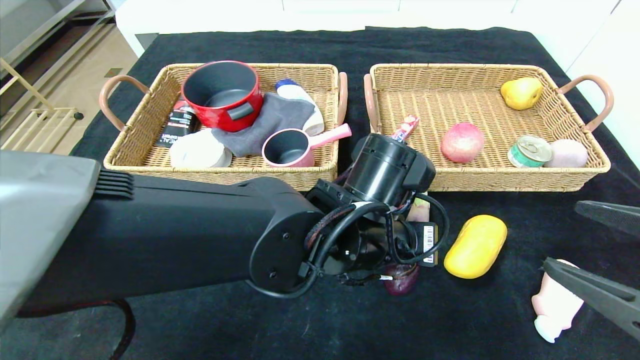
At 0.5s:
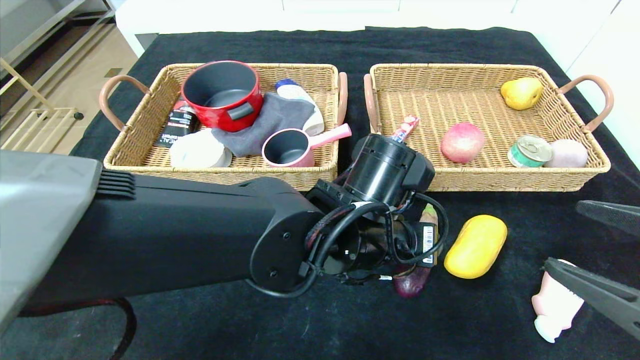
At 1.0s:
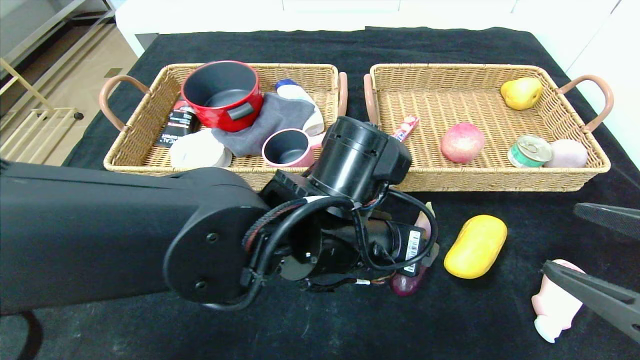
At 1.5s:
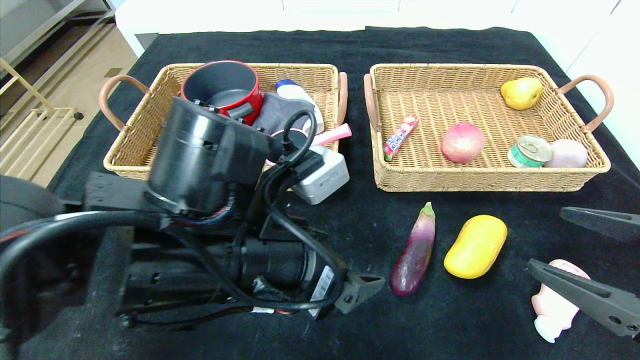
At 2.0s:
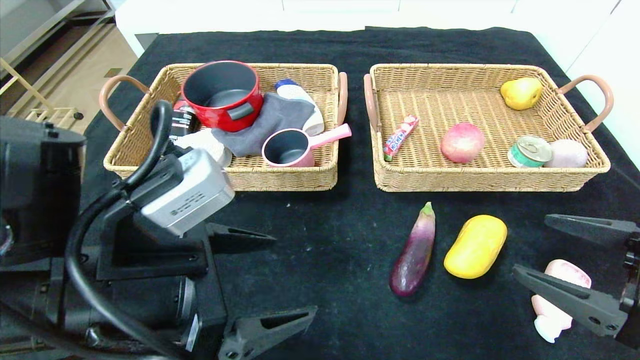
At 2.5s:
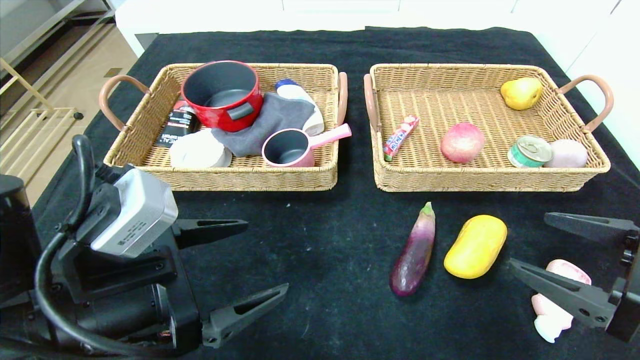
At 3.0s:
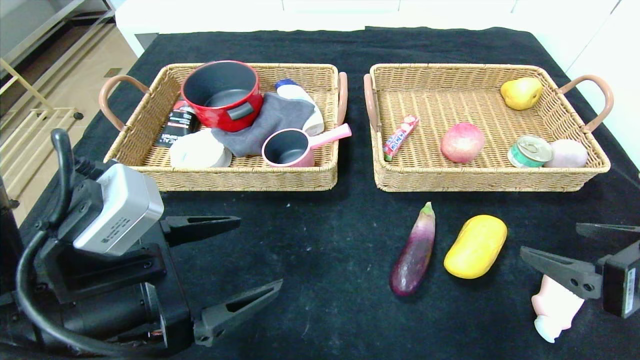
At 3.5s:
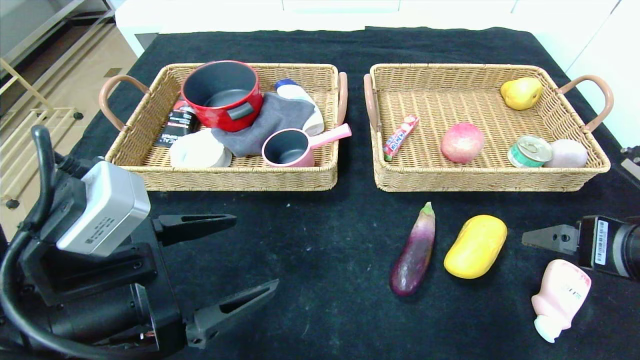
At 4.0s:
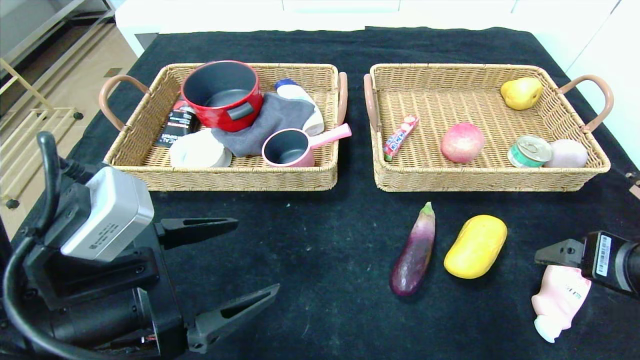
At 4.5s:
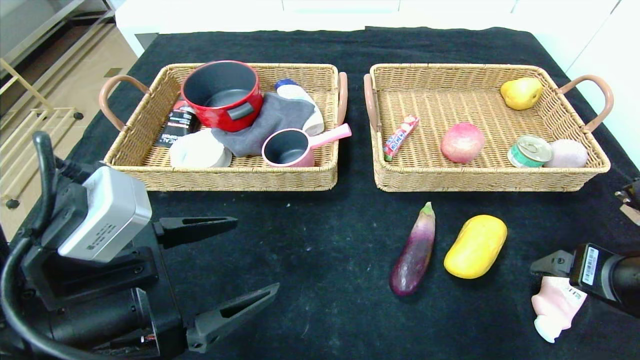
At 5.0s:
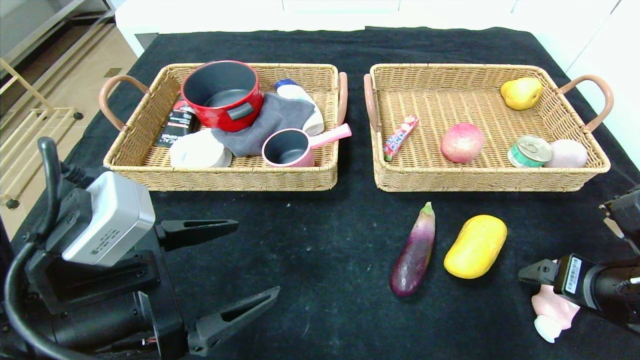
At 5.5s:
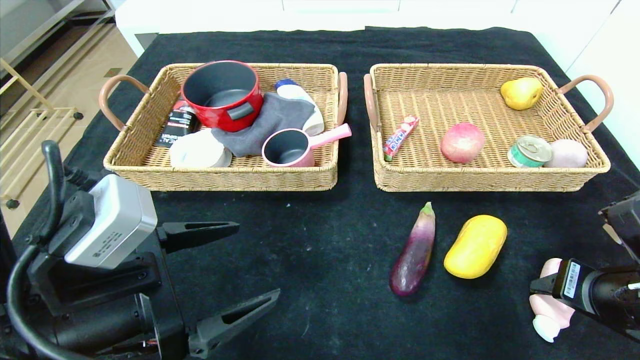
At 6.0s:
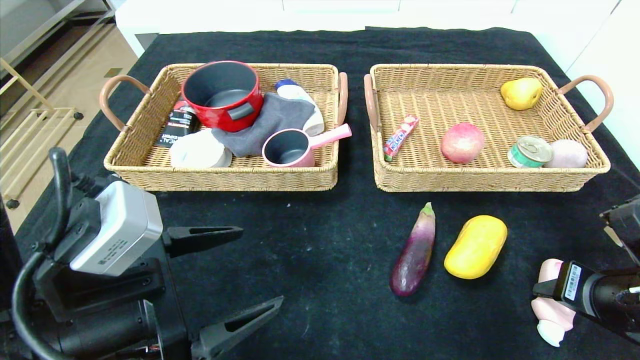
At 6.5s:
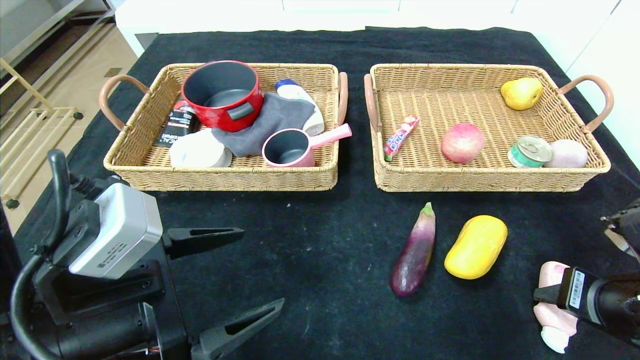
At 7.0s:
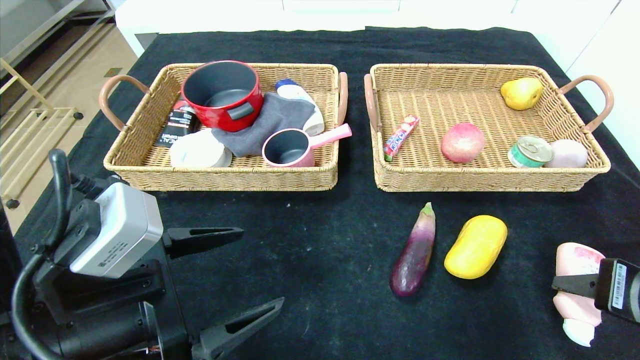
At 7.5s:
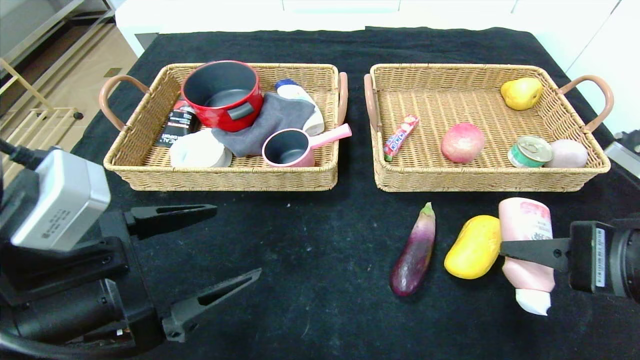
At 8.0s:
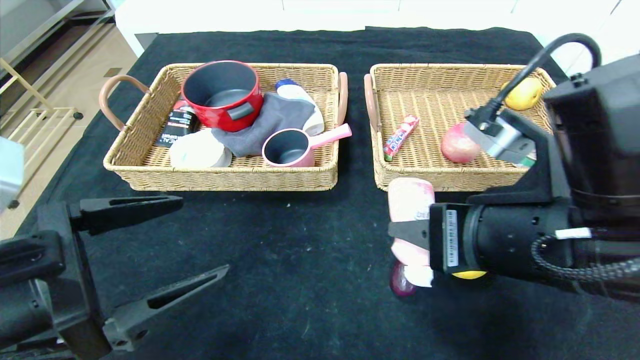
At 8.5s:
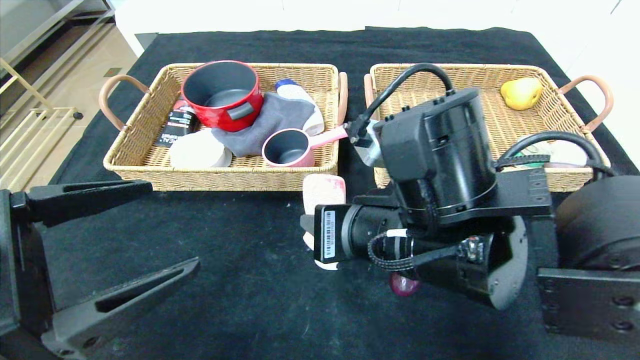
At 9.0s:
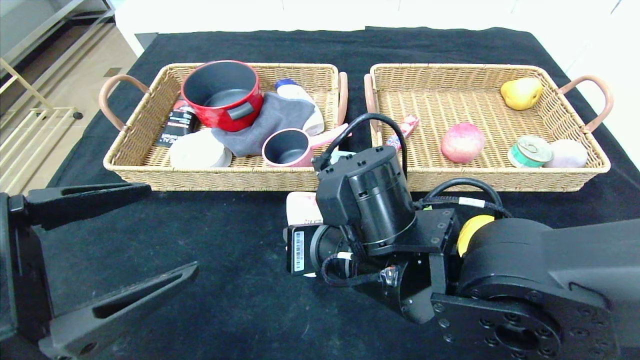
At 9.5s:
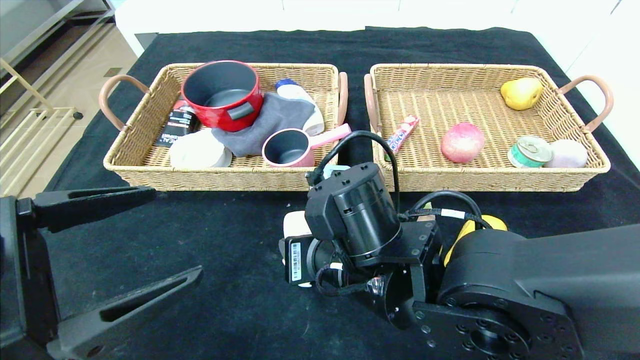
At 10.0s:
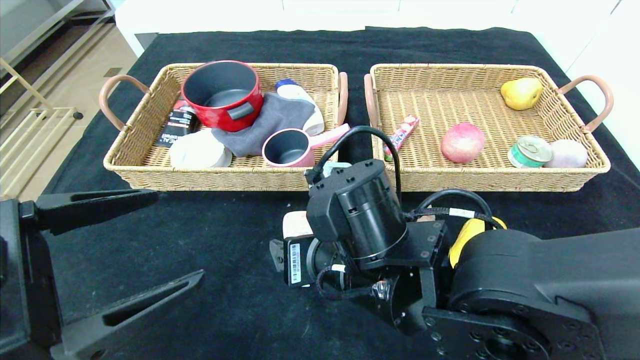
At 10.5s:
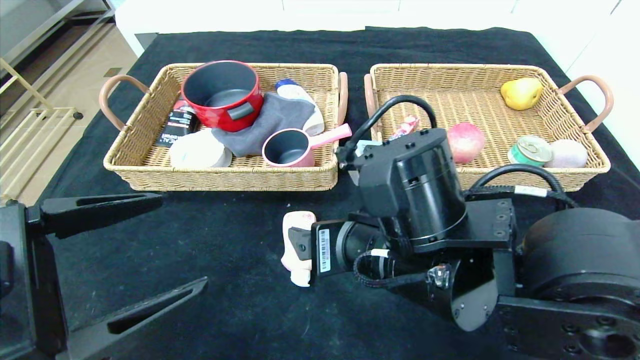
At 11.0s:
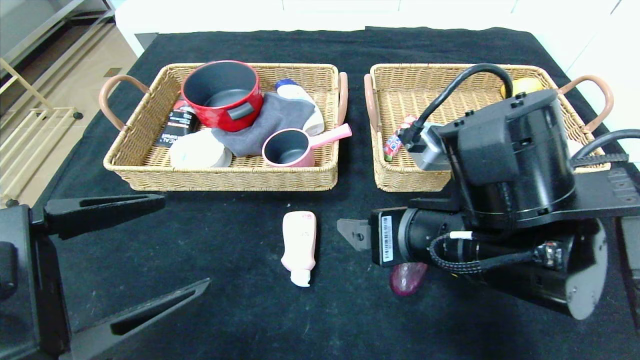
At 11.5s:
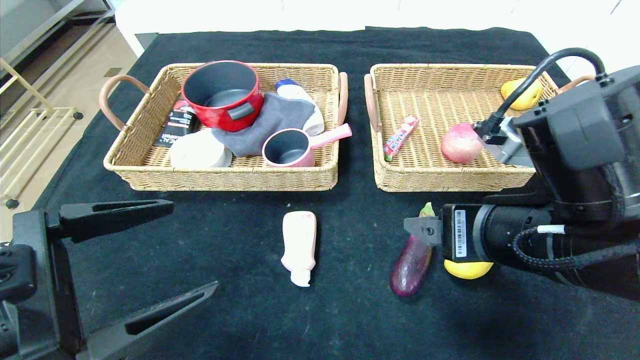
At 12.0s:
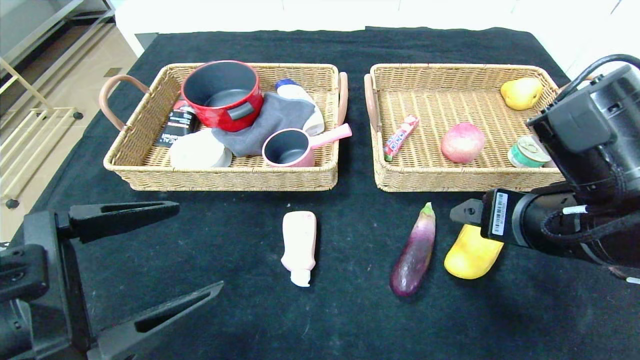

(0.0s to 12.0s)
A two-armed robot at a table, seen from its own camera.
Step, 1.0s - 10.0s: Place the detergent in the center of the table.
0.0s - 2.0s: The left gripper goes some 20 cm to the left and backward, and opens up.
4.0s - 6.0s: The right gripper is displaced downward by some 5 cm, and closes up.
6.0s - 8.0s: The left gripper moves some 5 cm. The right gripper moves to the left and upward, some 20 cm.
8.0s - 10.0s: The right gripper is displaced to the left and downward by approximately 15 cm, and opens its fingers.
10.0s - 12.0s: The right gripper shifts approximately 15 cm to the right.

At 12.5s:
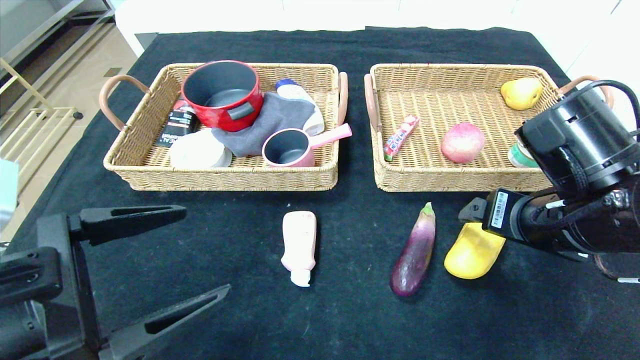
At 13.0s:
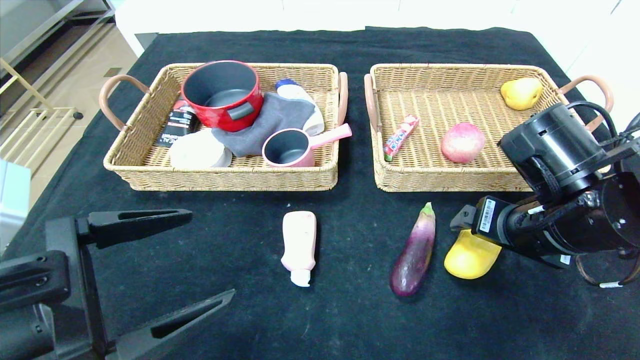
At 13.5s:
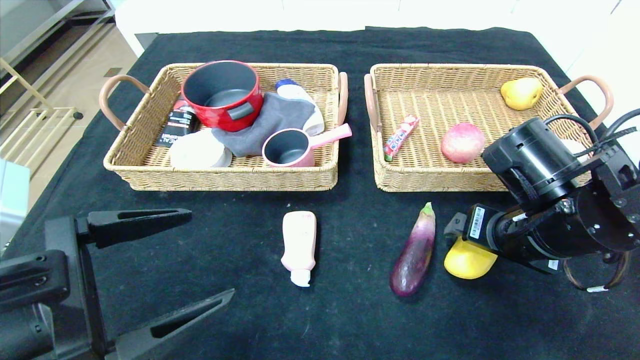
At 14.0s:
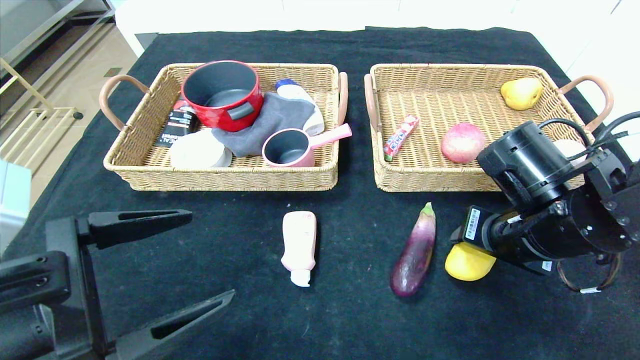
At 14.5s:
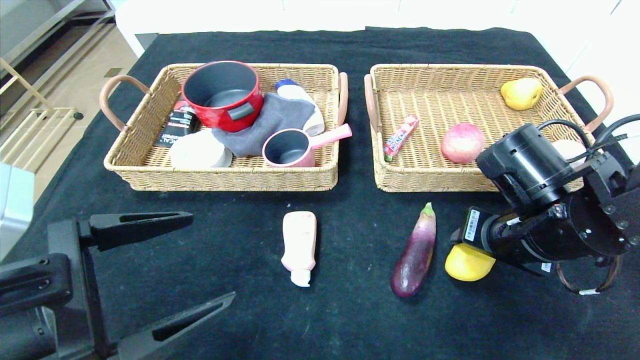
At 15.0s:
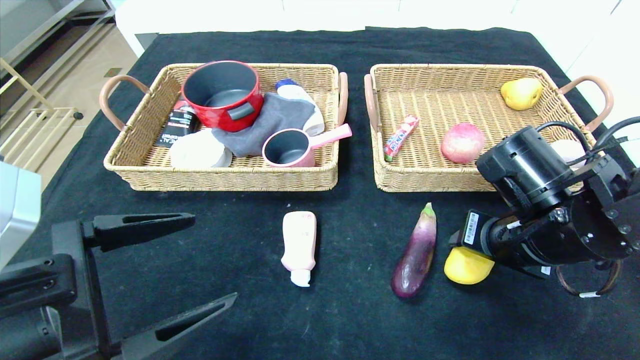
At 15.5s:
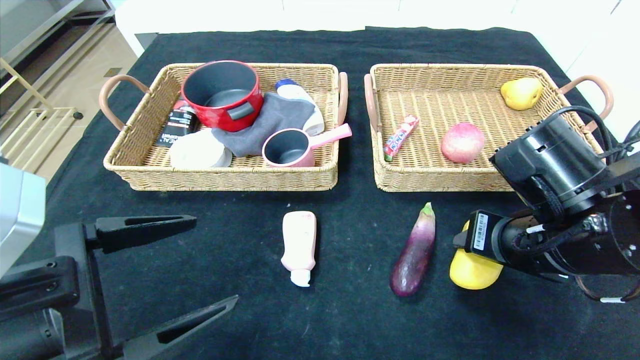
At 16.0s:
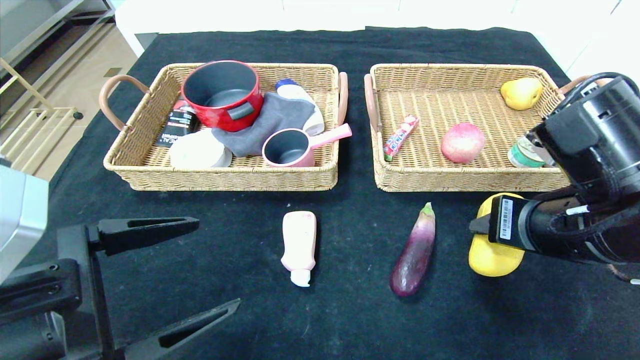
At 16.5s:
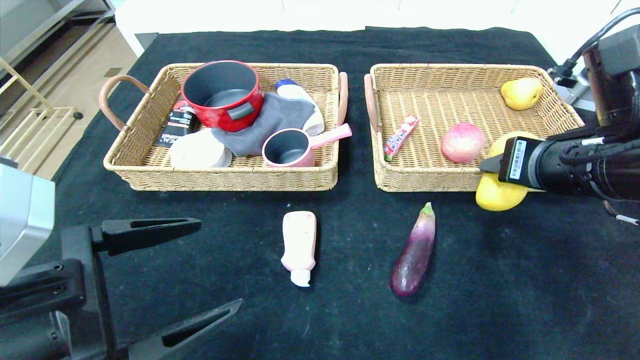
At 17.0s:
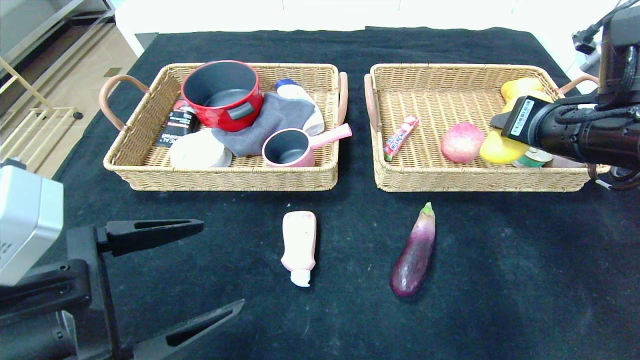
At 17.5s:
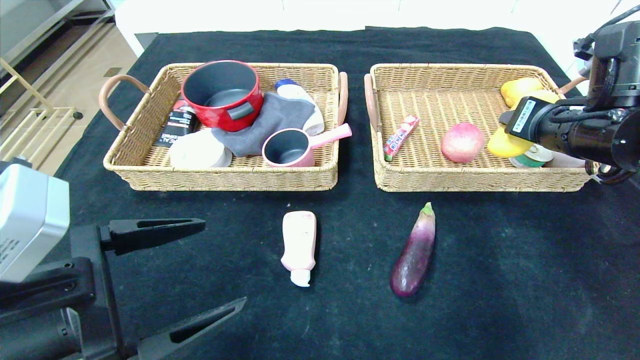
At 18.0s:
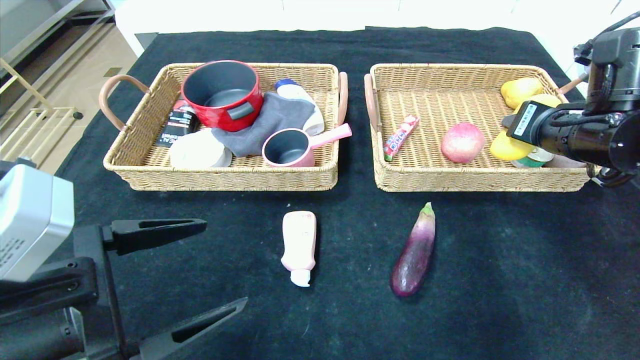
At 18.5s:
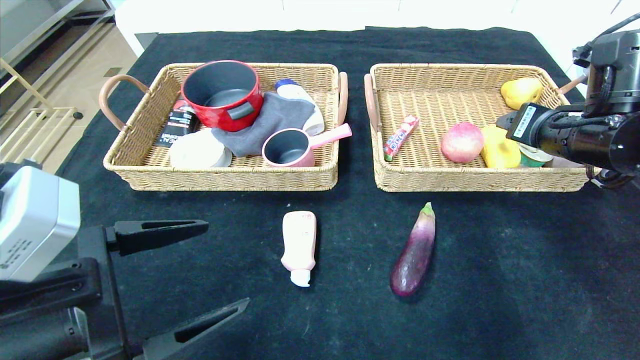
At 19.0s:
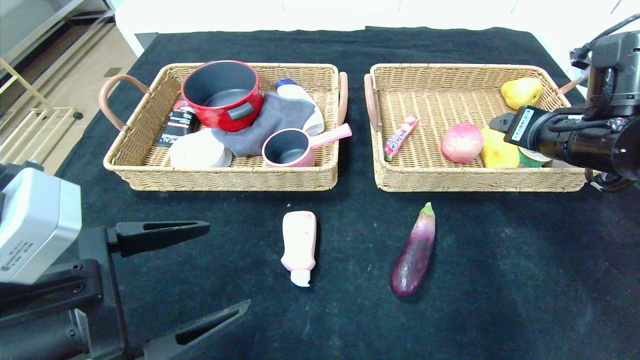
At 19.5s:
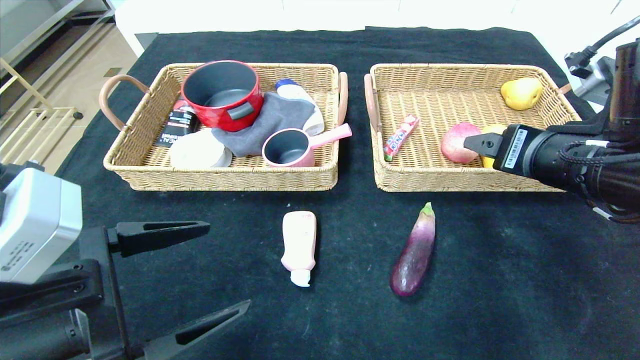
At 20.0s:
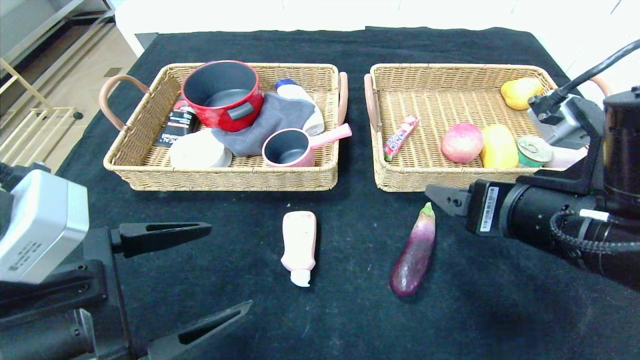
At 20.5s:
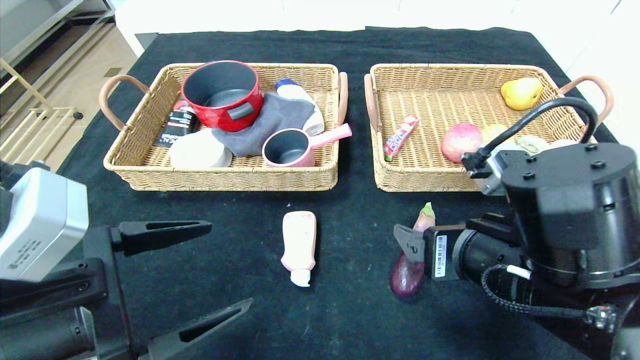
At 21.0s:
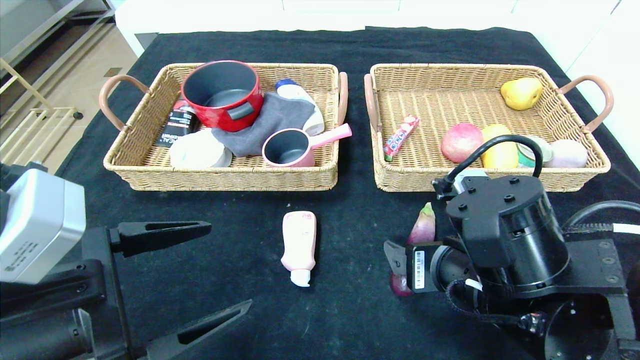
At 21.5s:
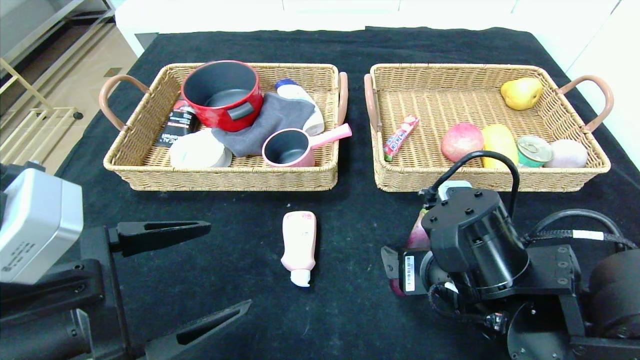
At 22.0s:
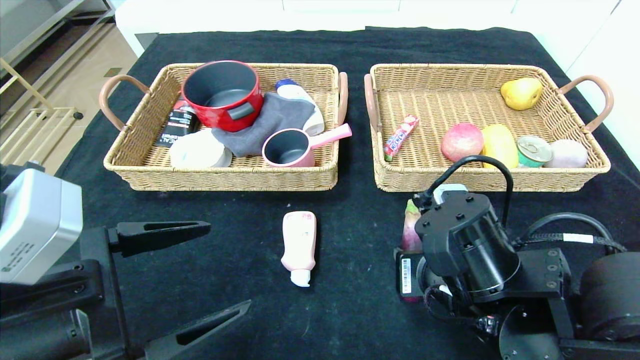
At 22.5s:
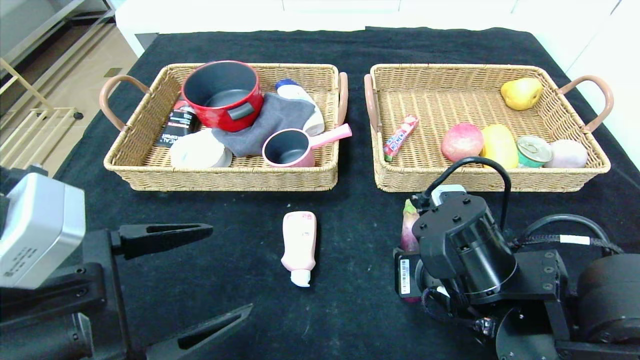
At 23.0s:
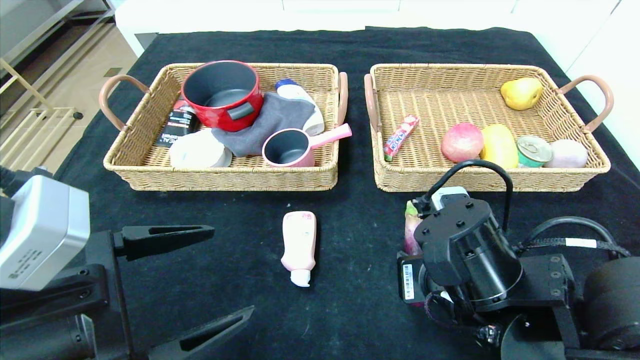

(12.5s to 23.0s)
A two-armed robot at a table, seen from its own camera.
Step, 12.5s - 18.5s: Grasp the mango and put it in the right basket.
12.5s - 14.5s: The right gripper closes up.
14.5s - 16.5s: The right gripper shifts some 10 cm upward.
16.5s - 19.0s: The right gripper goes approximately 5 cm forward, and opens its fingers.
19.0s - 21.0s: The right gripper goes some 20 cm to the left, backward and downward.
21.0s - 23.0s: The right gripper closes its fingers.
